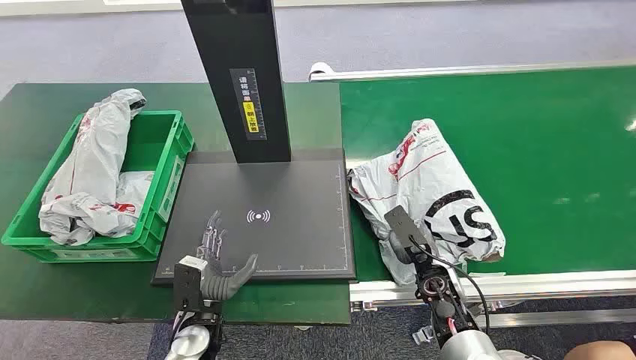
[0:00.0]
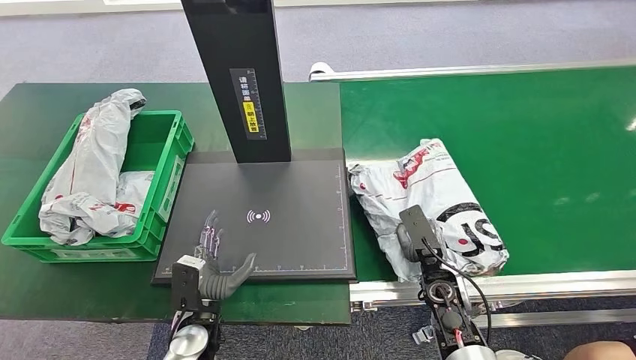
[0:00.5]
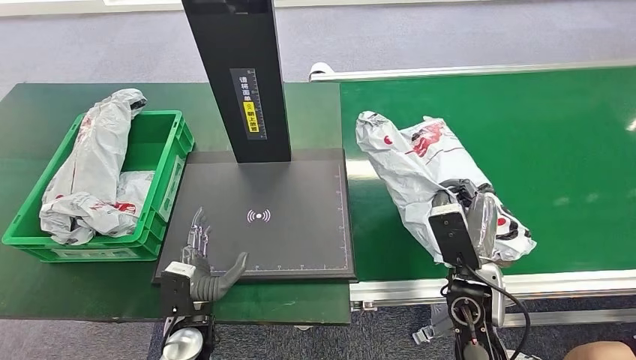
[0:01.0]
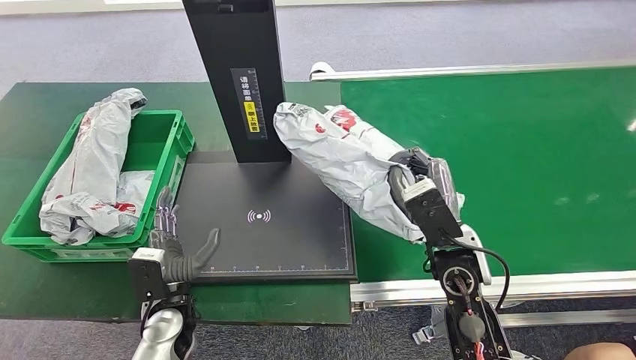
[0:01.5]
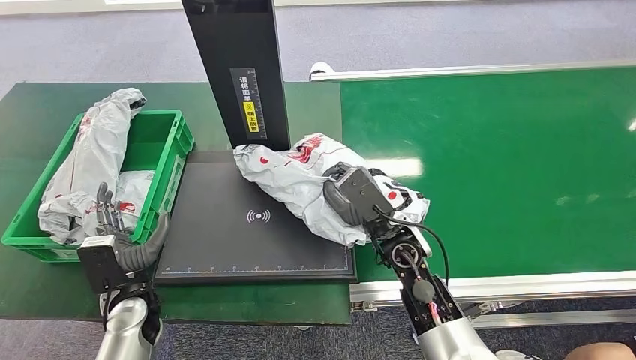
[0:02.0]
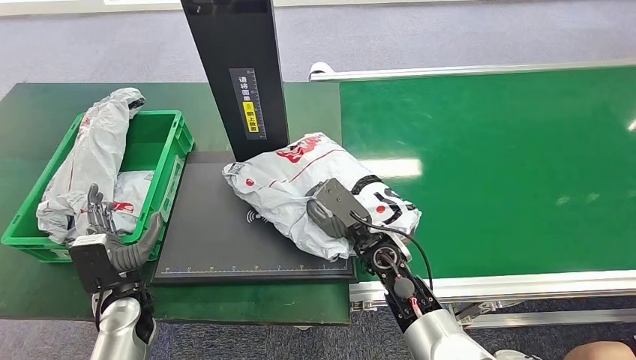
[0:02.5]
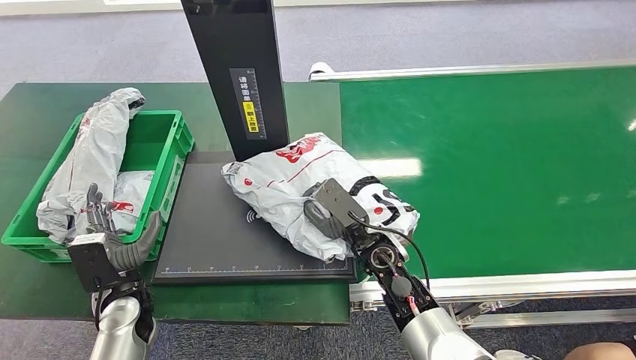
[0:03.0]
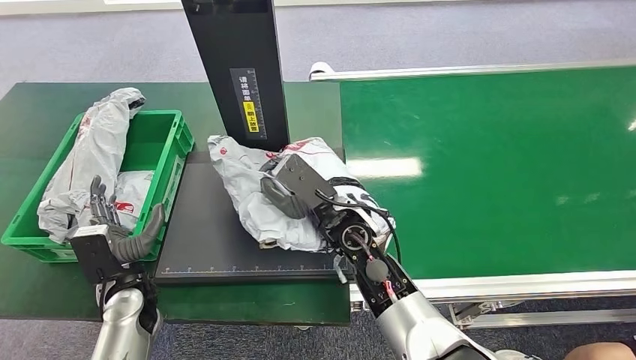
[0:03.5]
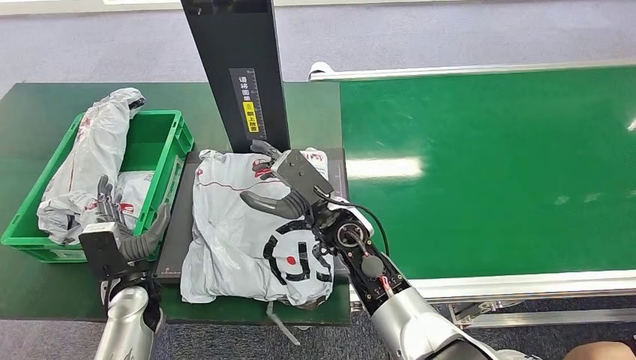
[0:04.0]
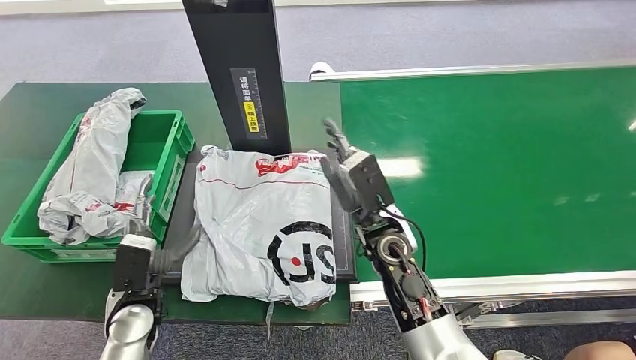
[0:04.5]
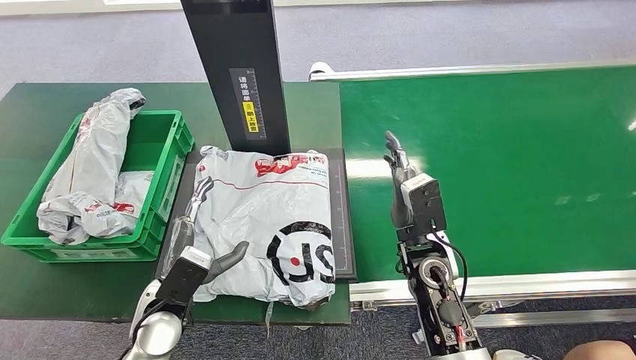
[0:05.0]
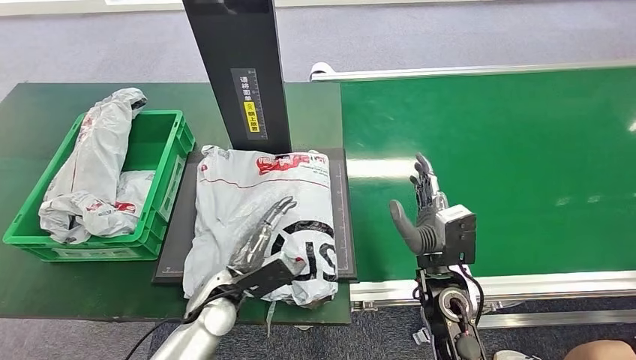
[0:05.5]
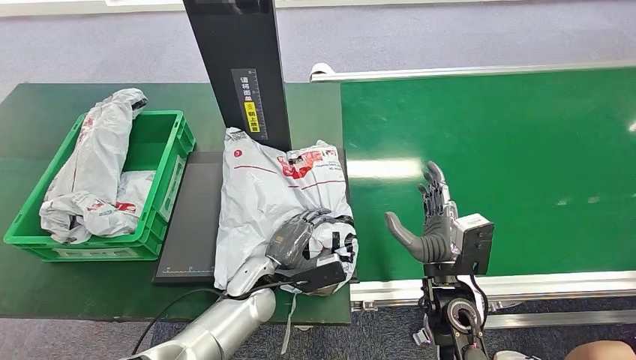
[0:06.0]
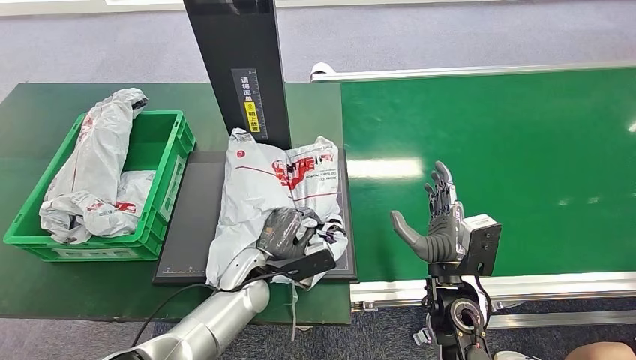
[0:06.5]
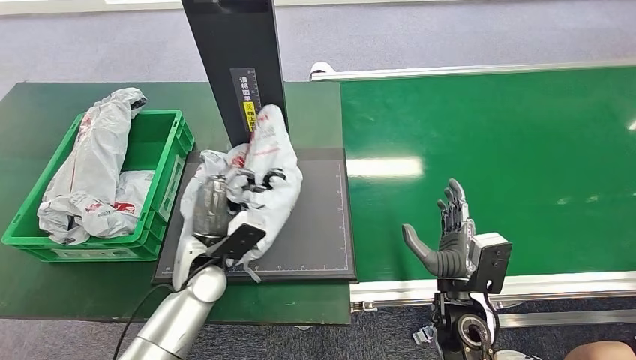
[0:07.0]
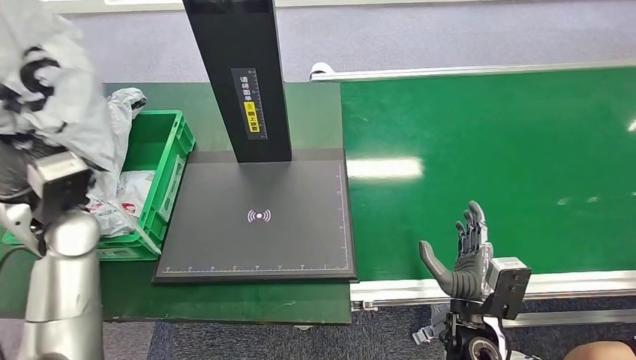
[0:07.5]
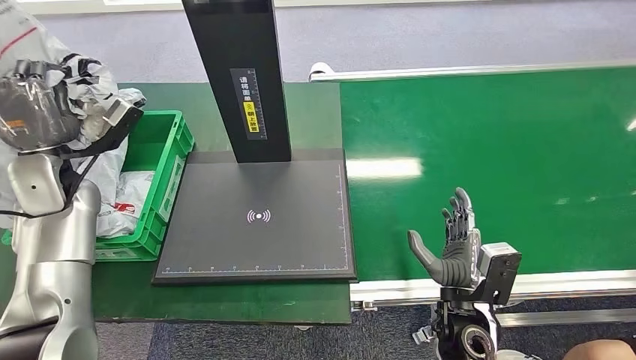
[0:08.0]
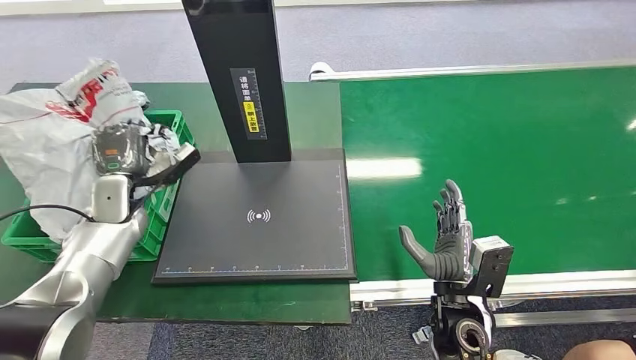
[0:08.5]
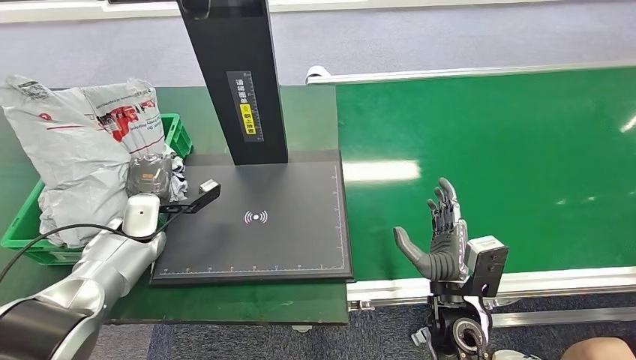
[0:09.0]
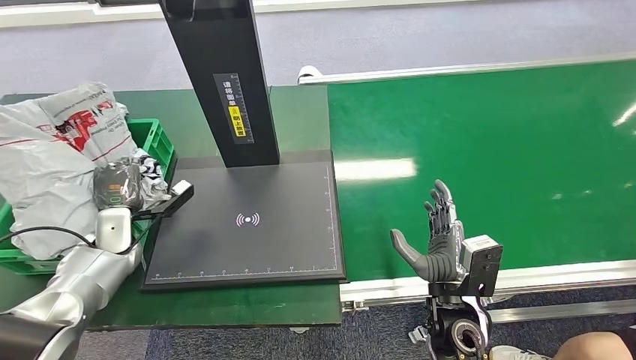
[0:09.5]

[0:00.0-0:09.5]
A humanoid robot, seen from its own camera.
Task of the whole recording: Weigh the package on the weighing device and place it in the left basket.
Step, 0:00.0 to 0:01.0: Pick up the package from the conveyor belt.
Step, 0:01.5 to 0:05.0: Place the package onto the inbound machine.
Step, 0:05.5 to 0:07.5: Pick up the package from the inbound machine.

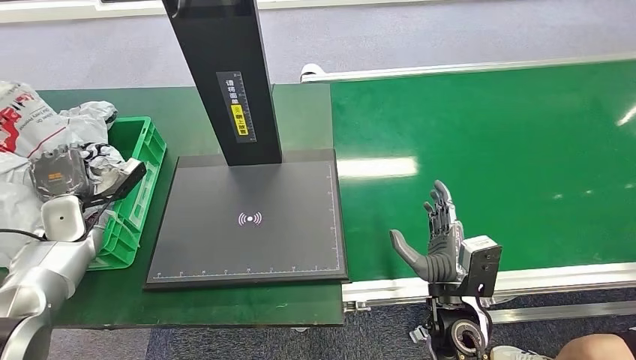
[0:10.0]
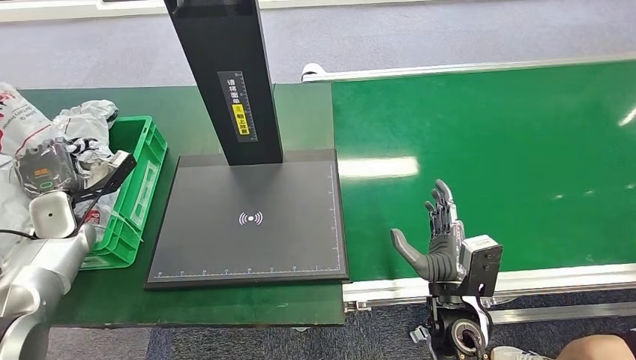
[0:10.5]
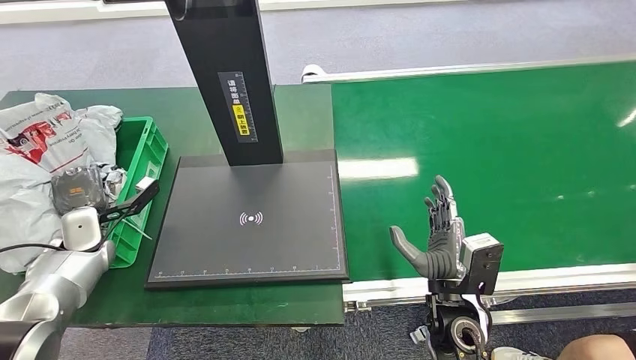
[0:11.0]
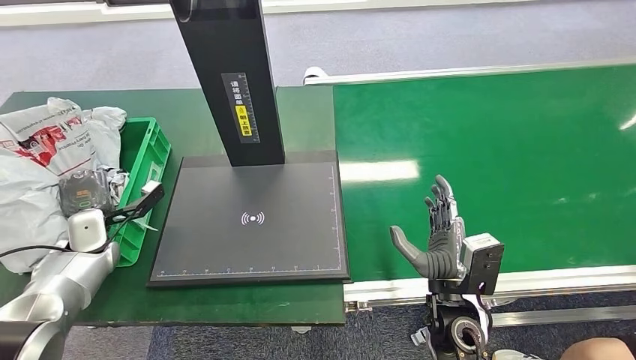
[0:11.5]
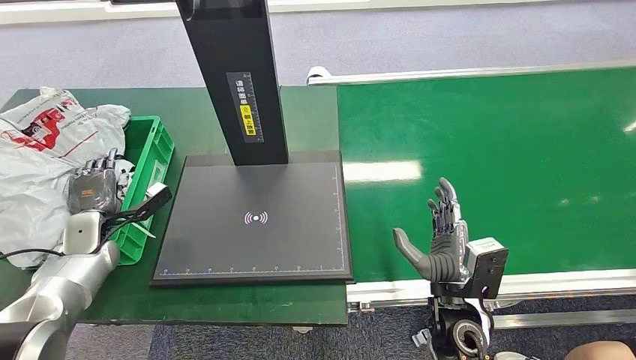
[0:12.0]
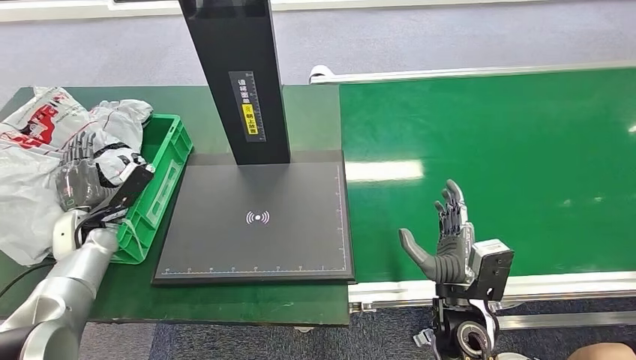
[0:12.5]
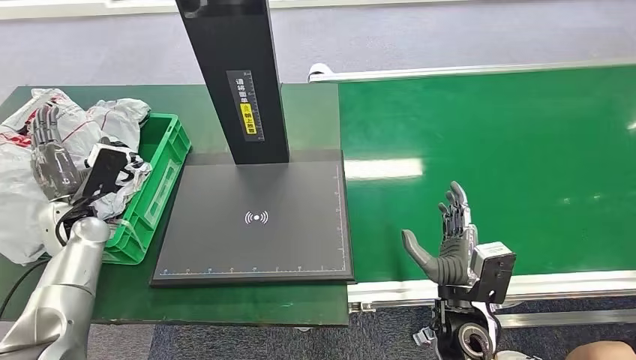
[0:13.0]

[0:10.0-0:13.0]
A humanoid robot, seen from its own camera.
Task of the whole recording: Weigh the package on the weighing device and place it in the left basket.
Step, 0:10.0 to 0:12.5: Place the package into the parcel locker.
